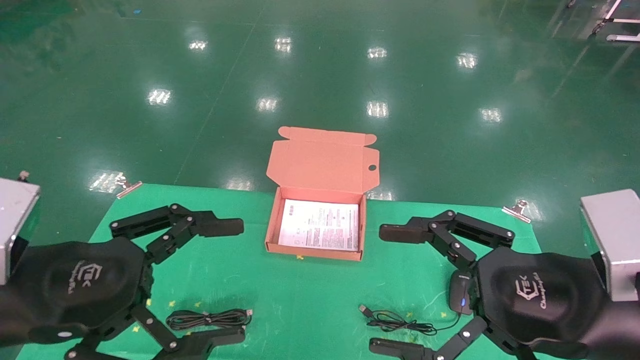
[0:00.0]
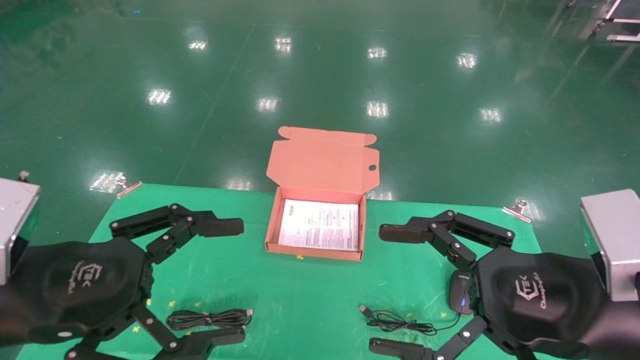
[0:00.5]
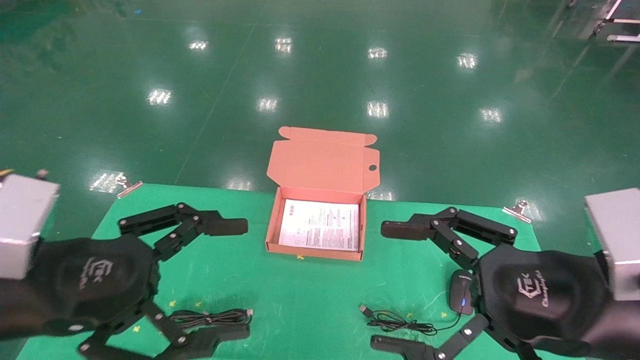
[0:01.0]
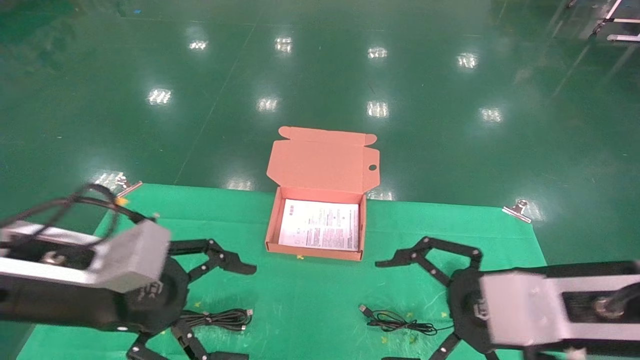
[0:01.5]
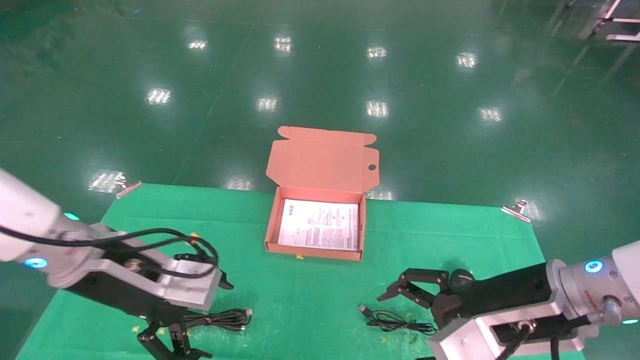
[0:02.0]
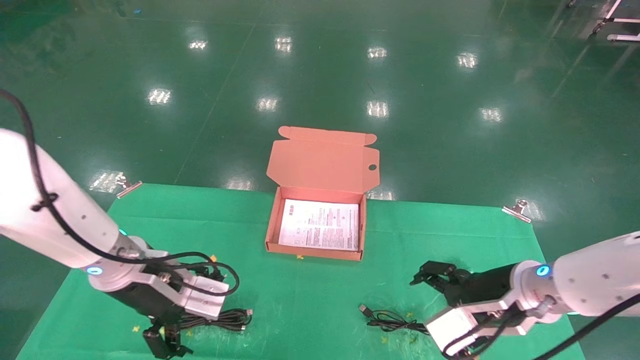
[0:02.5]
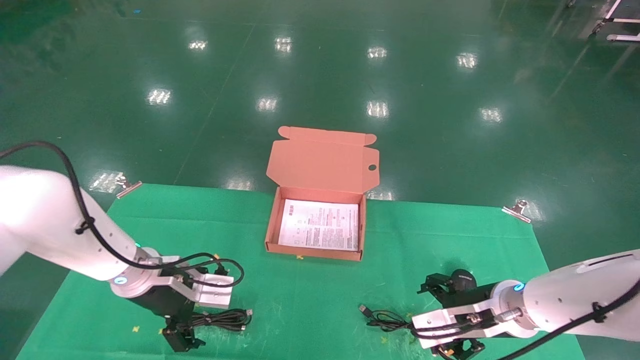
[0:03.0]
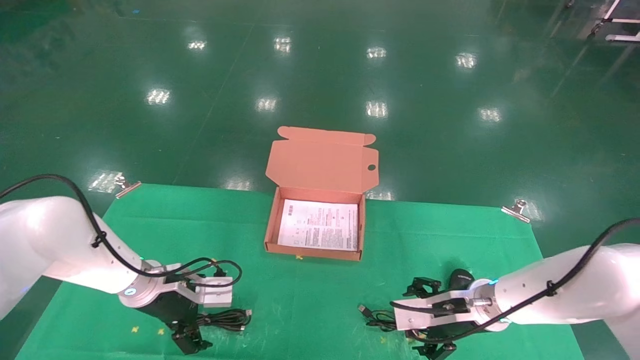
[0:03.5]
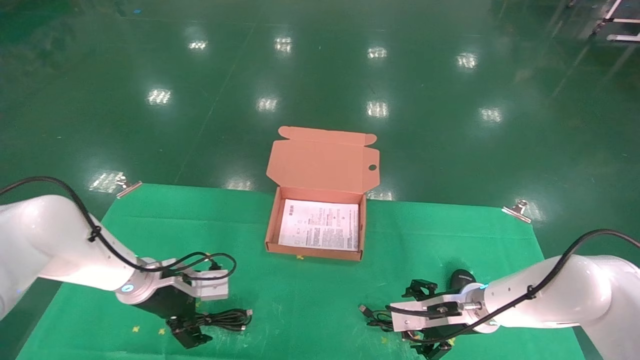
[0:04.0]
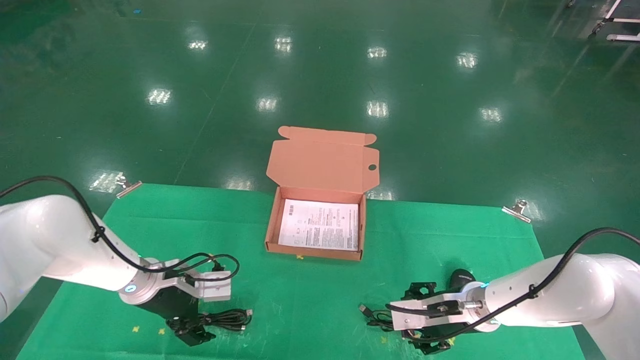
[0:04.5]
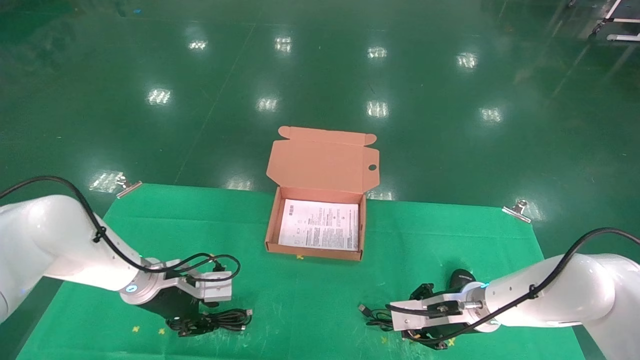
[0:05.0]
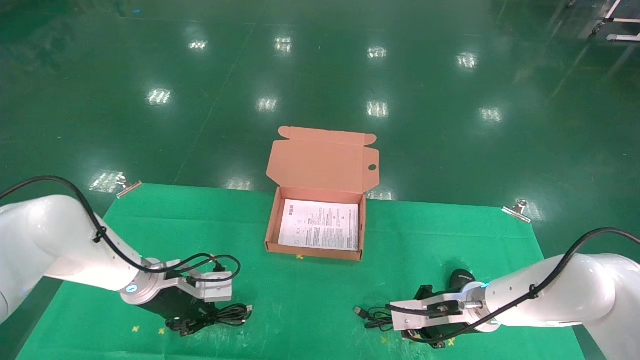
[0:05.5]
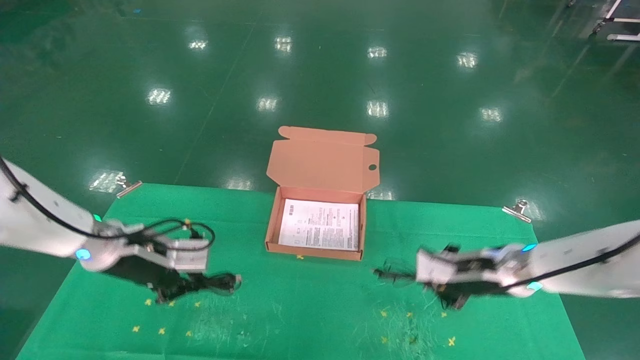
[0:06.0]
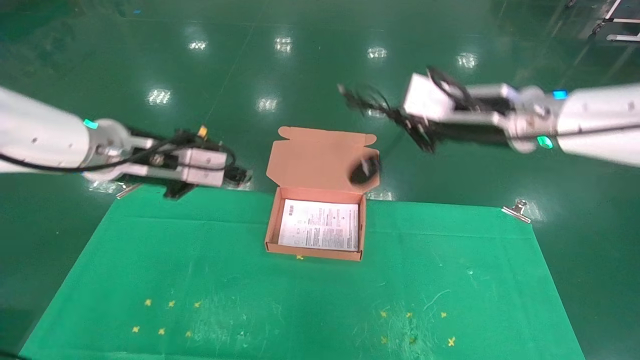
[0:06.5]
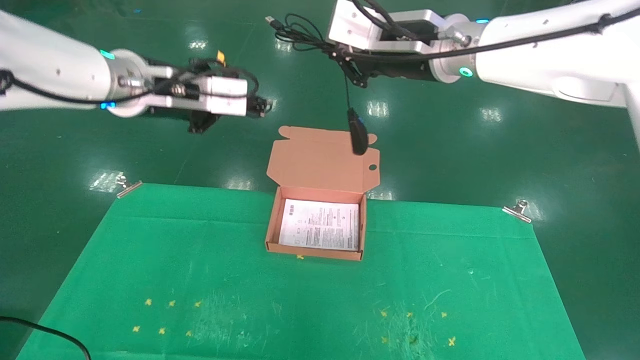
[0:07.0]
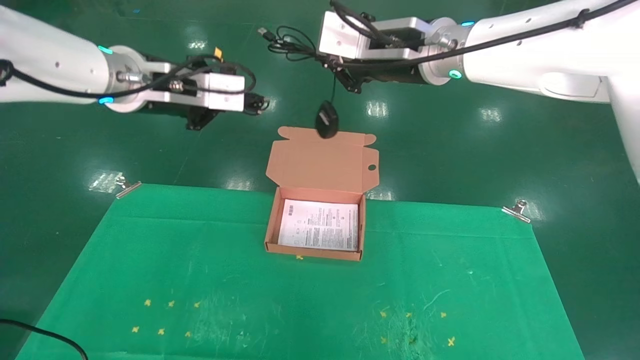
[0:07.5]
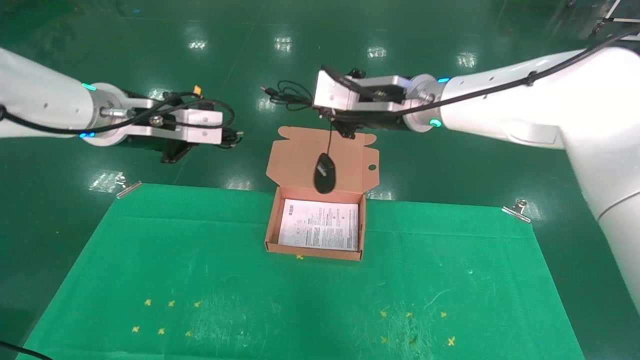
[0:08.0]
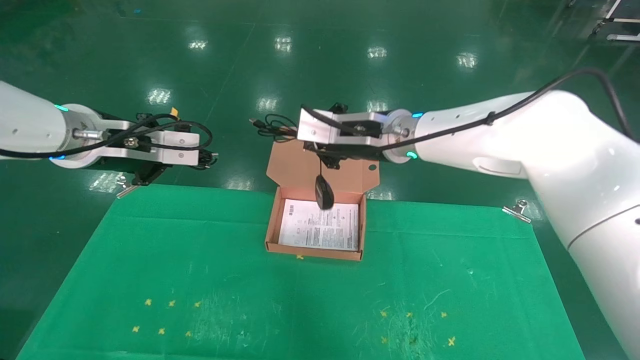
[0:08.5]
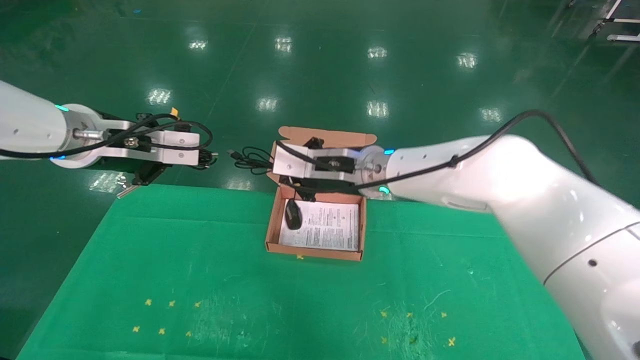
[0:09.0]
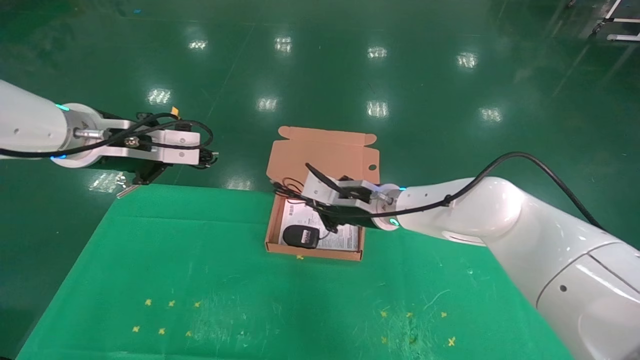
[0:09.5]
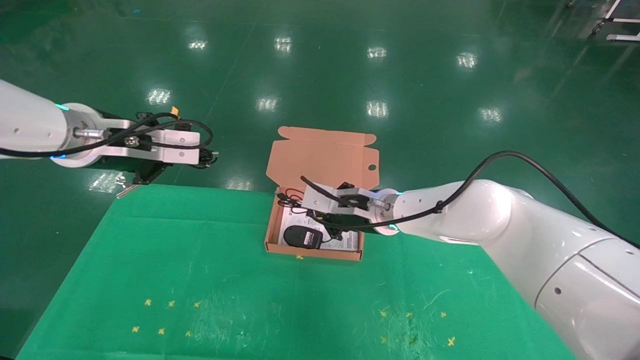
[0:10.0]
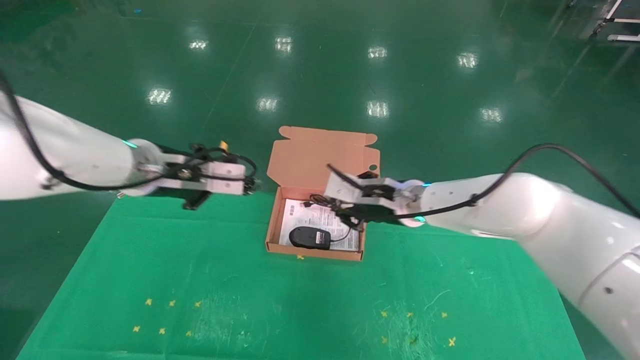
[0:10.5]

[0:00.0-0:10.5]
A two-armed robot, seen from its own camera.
Task of the whole recording: grasp data cable left put into box grasp mouse right put into box.
Step, 0:01.5 to 0:06.0: Grab and pick up both the mouse and power cord from the accessory packaging area at the same time.
0:00.0 to 0:02.0: Both grippers move forward, approximately 10 cm.
0:02.0 to 0:04.0: The grippers both shift forward and downward by about 20 cm.
0:04.0 to 0:06.5: Both grippers travel together upward, approximately 25 cm. The left gripper closes its fingers. Meanwhile the right gripper closes its fingers.
0:06.5 to 0:08.5: The right gripper goes approximately 10 cm to the left.
0:08.5 to 0:10.5: The left gripper shifts about 10 cm to the right and downward; the right gripper goes roughly 10 cm downward and to the right.

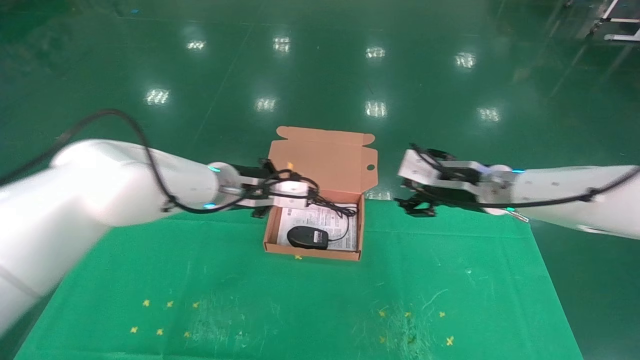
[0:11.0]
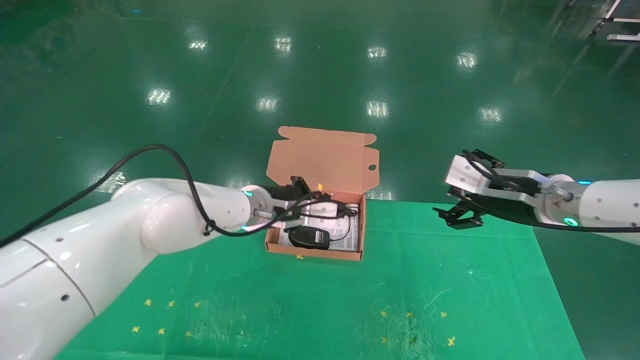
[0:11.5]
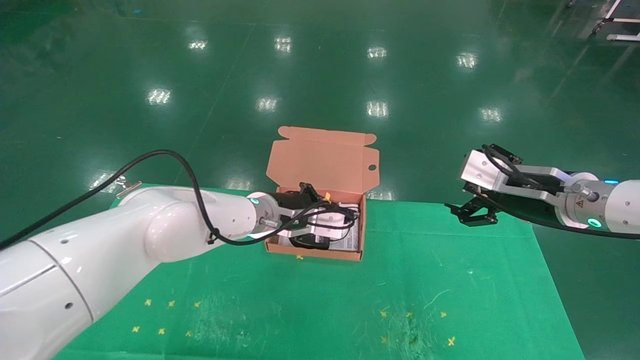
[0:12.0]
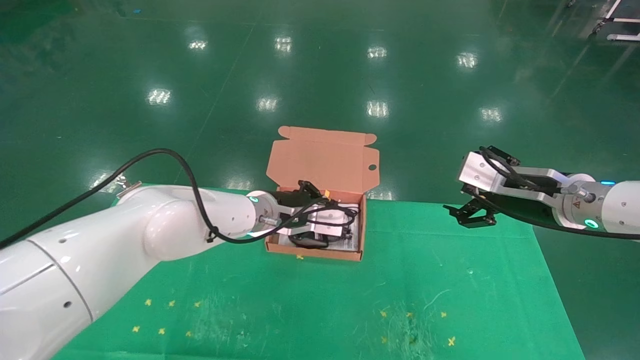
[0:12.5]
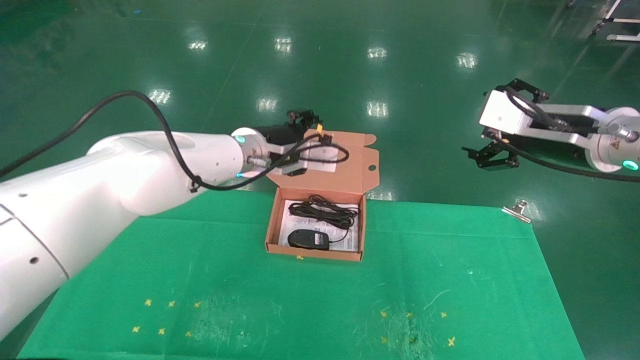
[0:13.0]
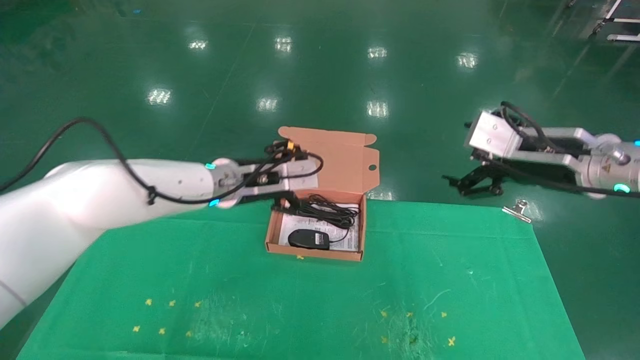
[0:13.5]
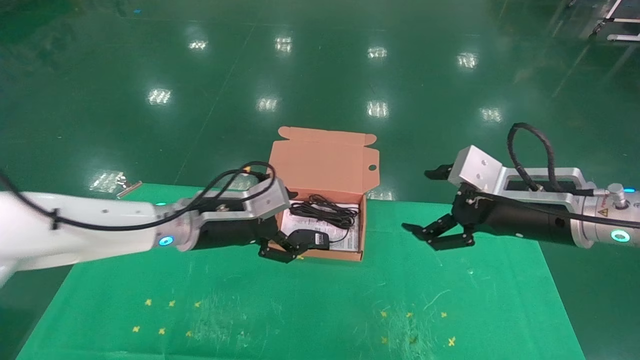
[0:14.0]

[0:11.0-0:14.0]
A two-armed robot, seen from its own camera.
Task of the whole recording: grasp data cable left put into box grasp mouse right put into box.
0:11.0 to 0:12.5: The right gripper shifts approximately 5 cm to the right. The left gripper shifts by approximately 5 cm.
0:12.5 to 0:14.0: The right gripper goes approximately 5 cm backward; the left gripper travels to the left and backward by about 10 cm, and opens up.

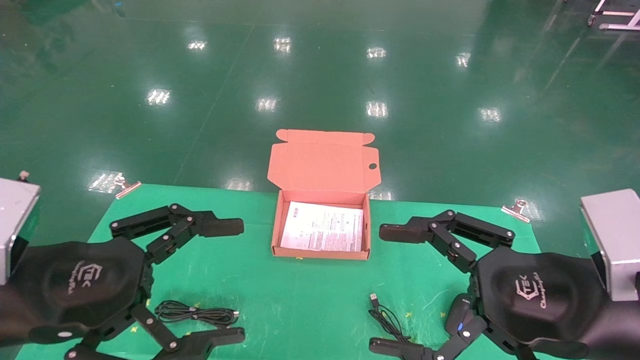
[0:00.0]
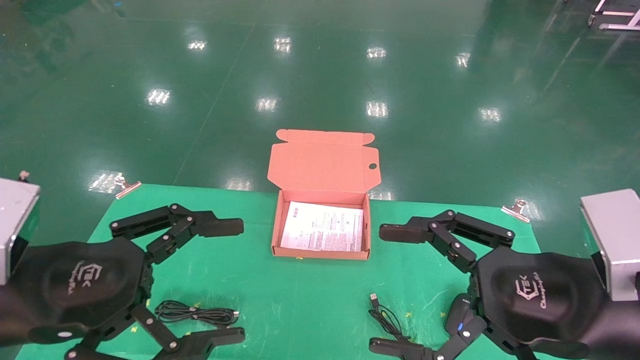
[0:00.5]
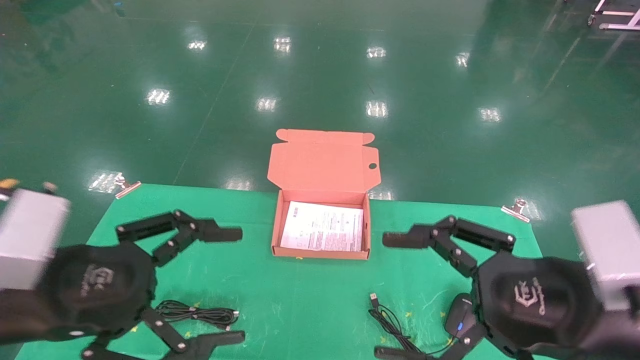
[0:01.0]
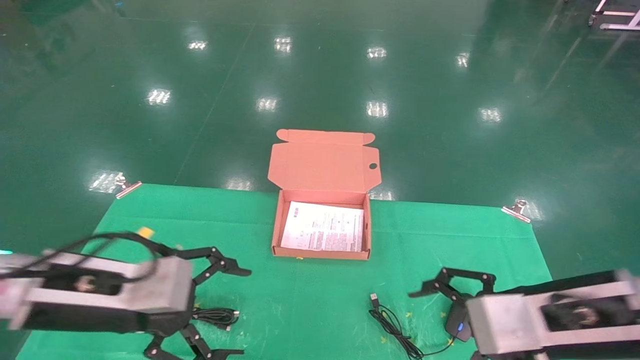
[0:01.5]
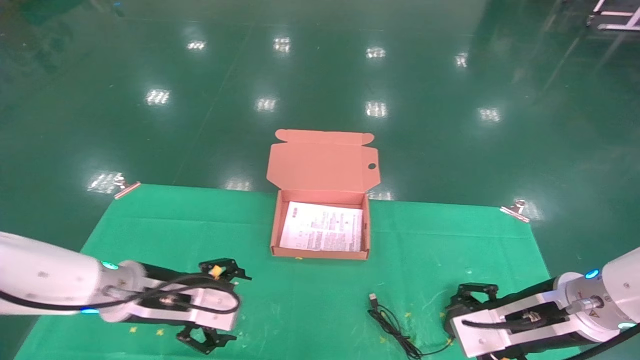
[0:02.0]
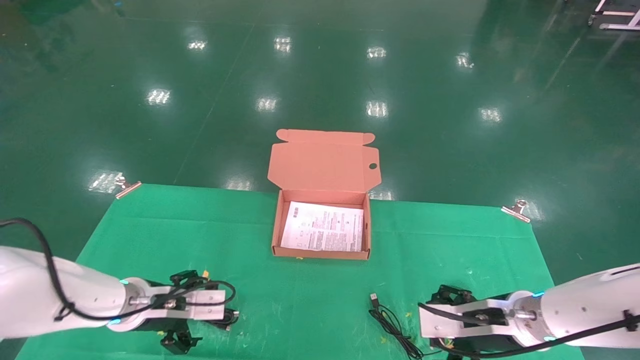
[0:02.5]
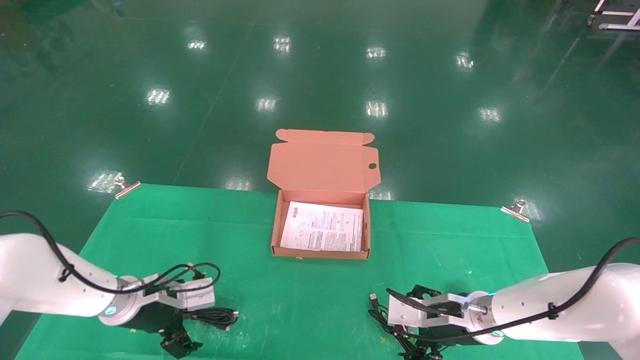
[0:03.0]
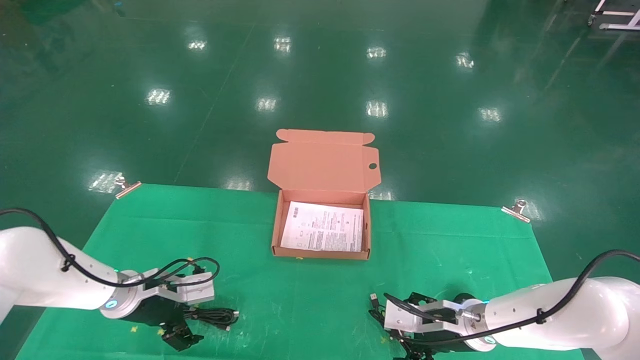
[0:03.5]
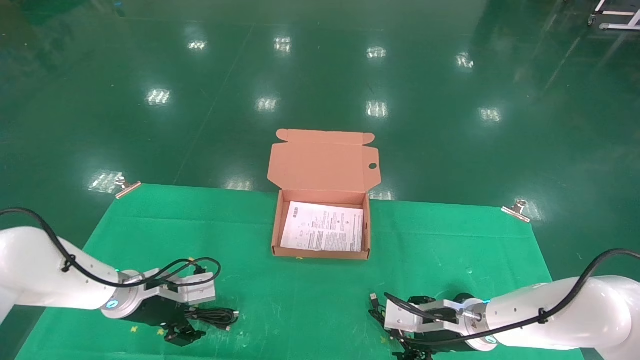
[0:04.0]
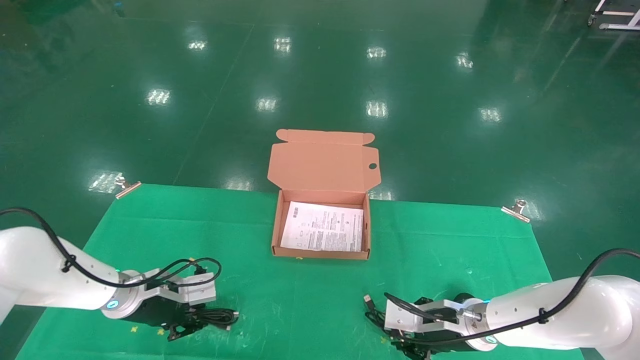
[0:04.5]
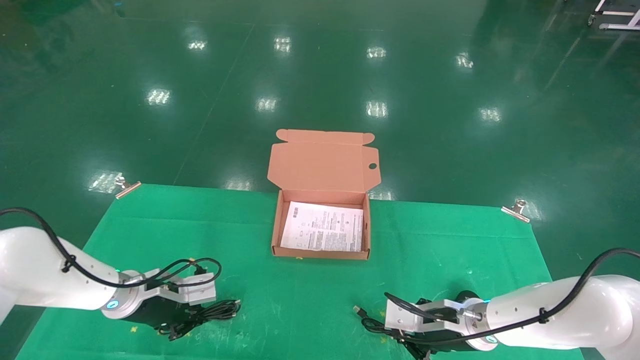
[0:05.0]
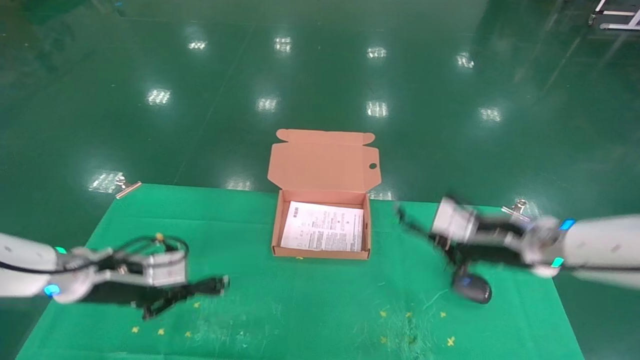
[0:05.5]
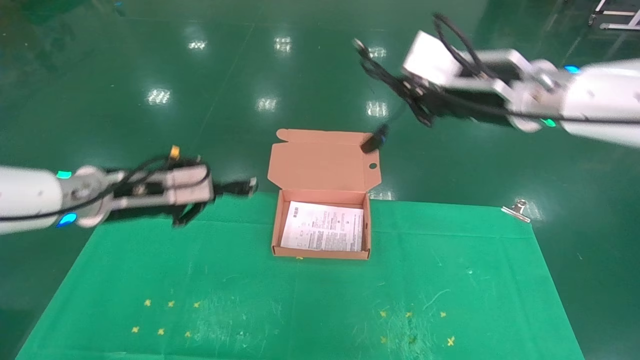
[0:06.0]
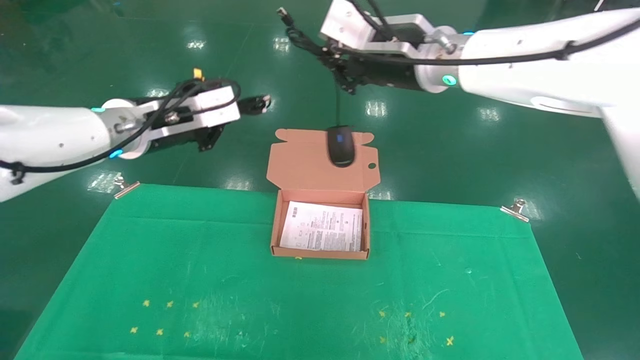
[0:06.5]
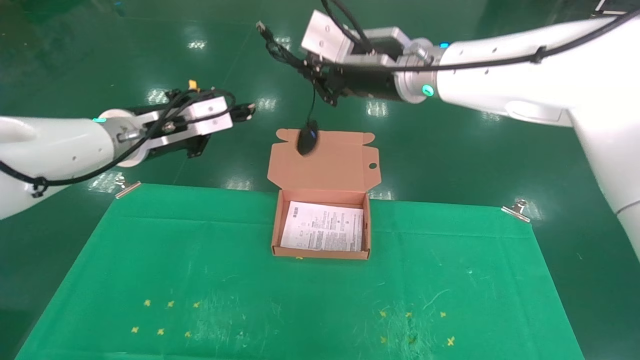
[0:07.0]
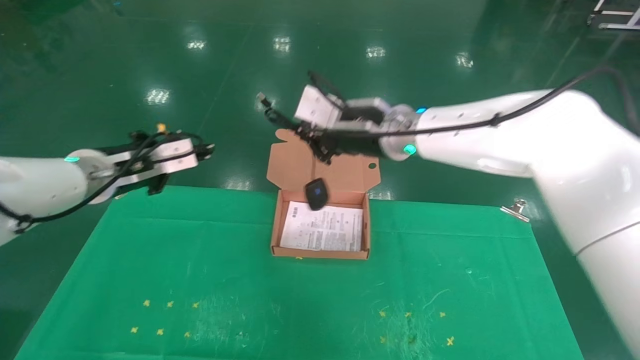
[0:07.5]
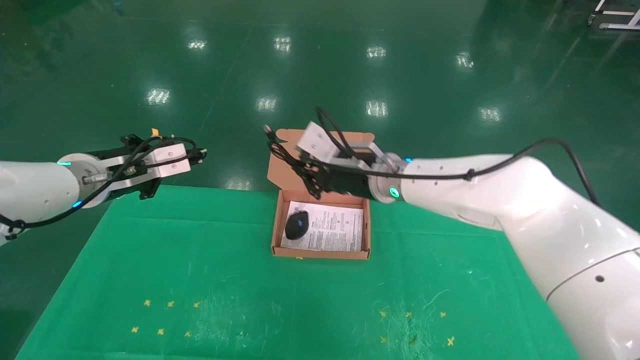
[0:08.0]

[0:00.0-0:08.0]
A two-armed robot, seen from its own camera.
Task of the whole recording: grasp data cable left put into box grasp mouse right put into box.
Step, 0:01.0 to 0:05.5: Grab and pick up both the mouse and power cord from the accessory packaging area at the same time.
0:00.0 to 0:02.0: The two grippers go about 15 cm forward and downward.
0:02.0 to 0:04.0: The left gripper is displaced forward, downward and to the left by some 10 cm; the right gripper shifts about 15 cm downward, forward and to the left.
0:04.0 to 0:06.0: The right gripper travels upward by roughly 35 cm, and closes its fingers. The left gripper heads upward, covering about 20 cm, and closes up.
0:06.0 to 0:08.0: The right gripper shifts approximately 20 cm to the left, downward and forward.
